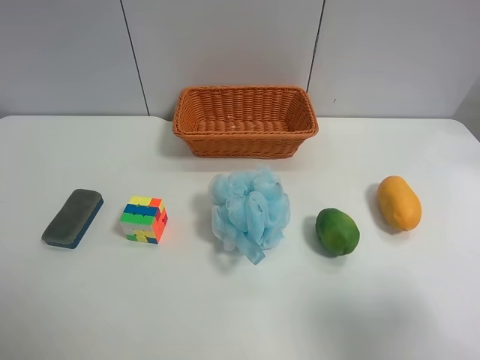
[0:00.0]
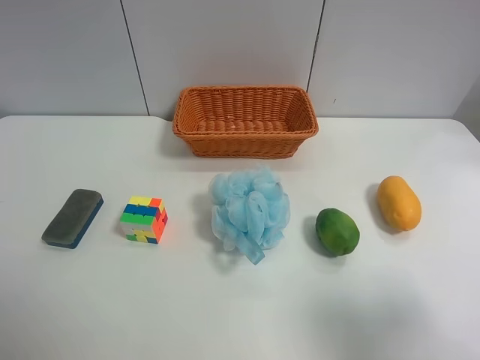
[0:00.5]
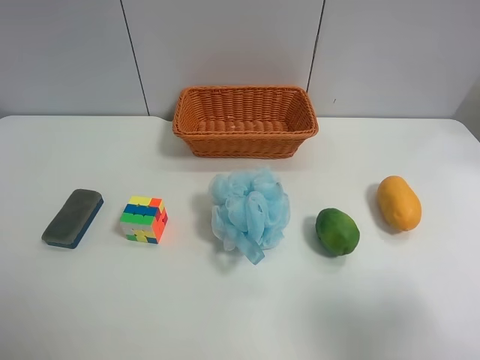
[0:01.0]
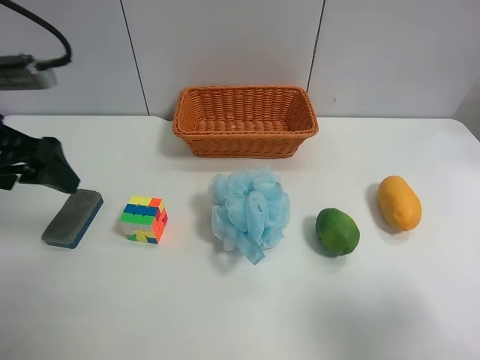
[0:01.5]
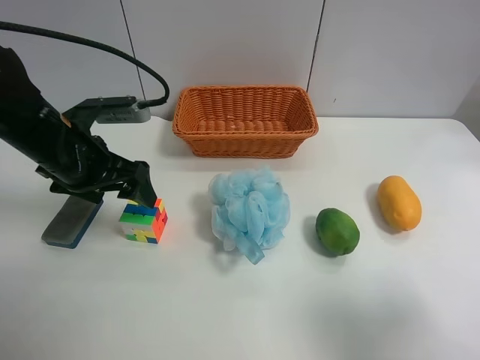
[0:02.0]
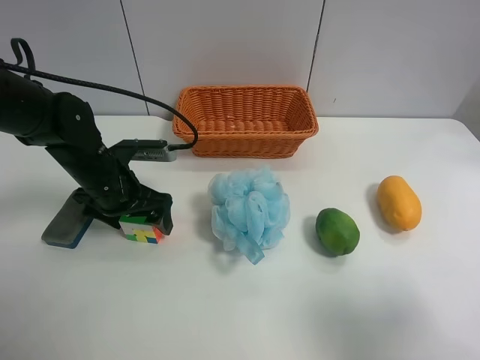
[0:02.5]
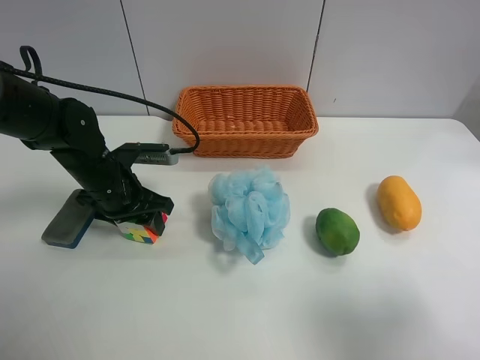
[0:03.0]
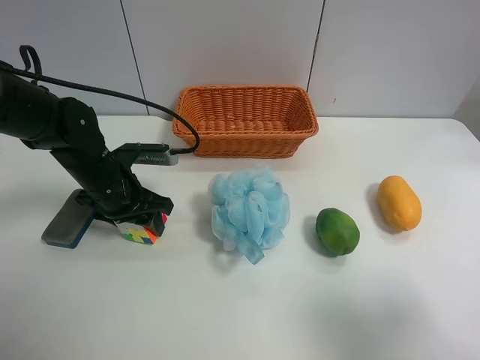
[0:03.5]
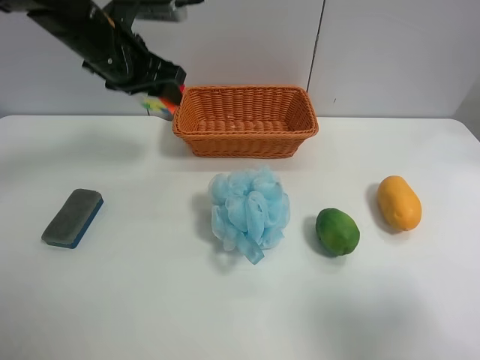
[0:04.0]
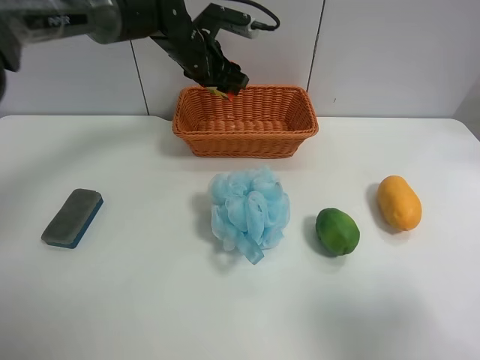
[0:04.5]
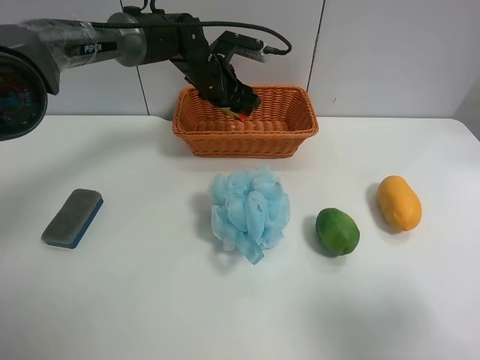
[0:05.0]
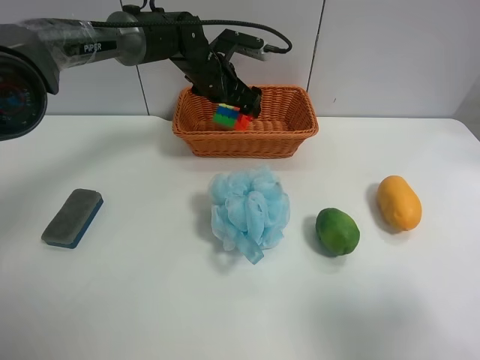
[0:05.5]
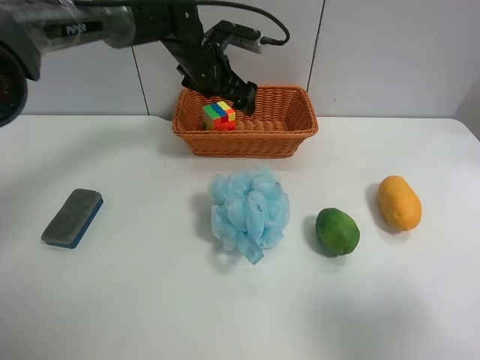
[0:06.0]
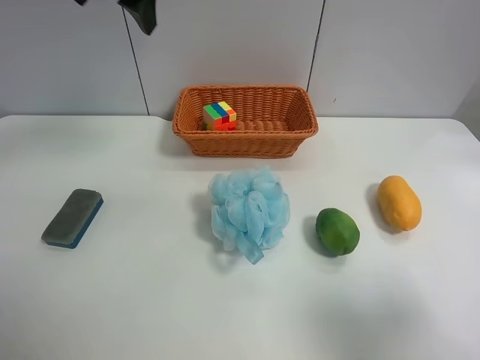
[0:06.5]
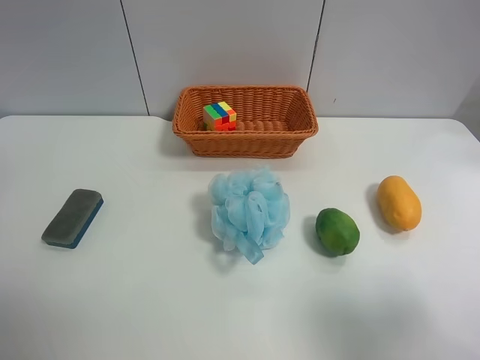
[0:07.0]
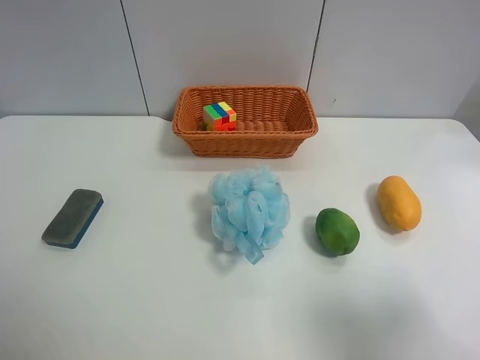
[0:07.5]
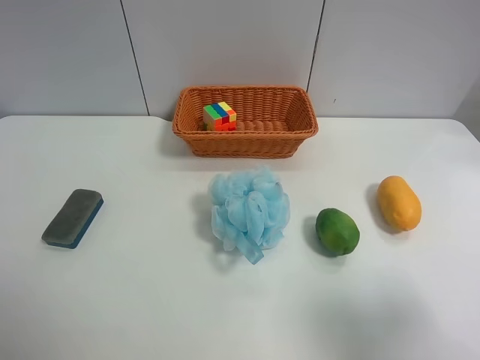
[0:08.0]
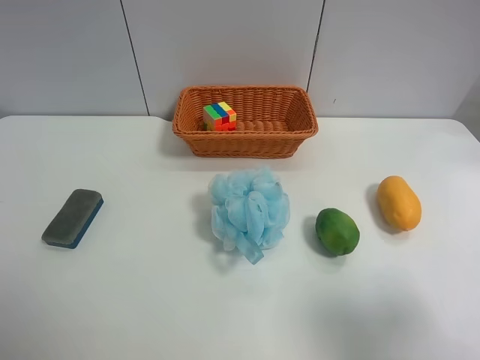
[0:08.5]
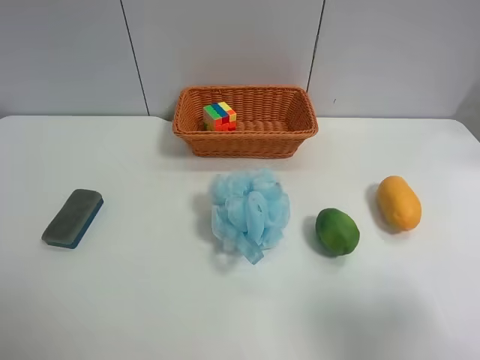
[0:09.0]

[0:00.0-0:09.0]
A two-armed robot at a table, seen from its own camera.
Task of the whole recording: use the left gripper to grab items from the table and place them in the basket.
Step, 0:00.0 to 0:03.0: Grasp the Rubik's Cube with the left gripper.
Step, 0:03.5 to 0:05.5: Place the Rubik's Cube into the basket with the left gripper.
0:00.0 to 0:02.0: The left gripper moves forward and to the right, some 30 cm.
0:02.0 to 0:04.5: The left gripper is displaced forward and to the right by approximately 25 cm, and closes up.
0:04.5 to 0:07.0: The left gripper travels backward, upward and to the left by about 40 cm, and opens.
